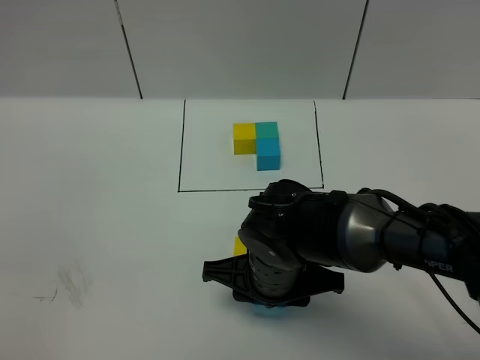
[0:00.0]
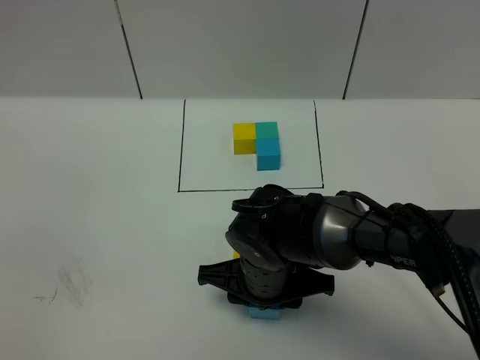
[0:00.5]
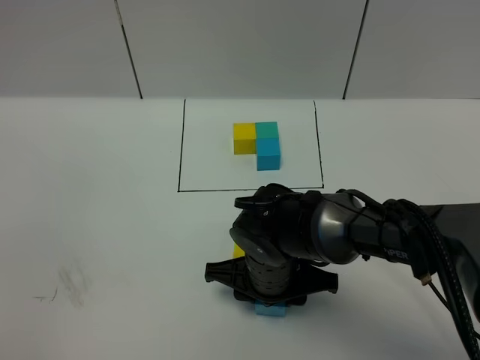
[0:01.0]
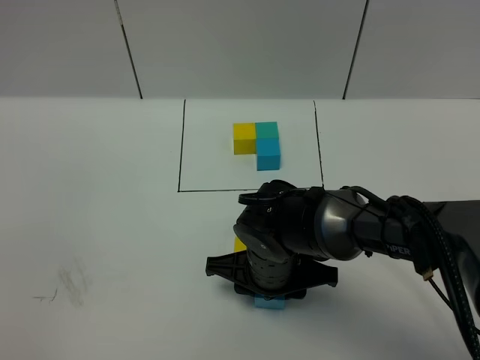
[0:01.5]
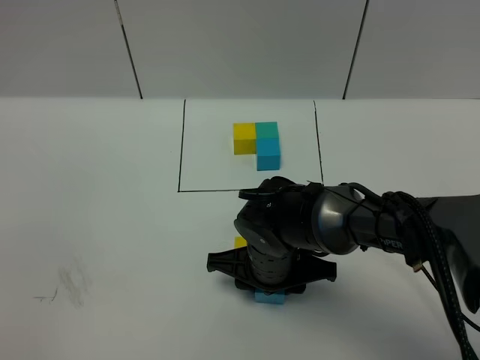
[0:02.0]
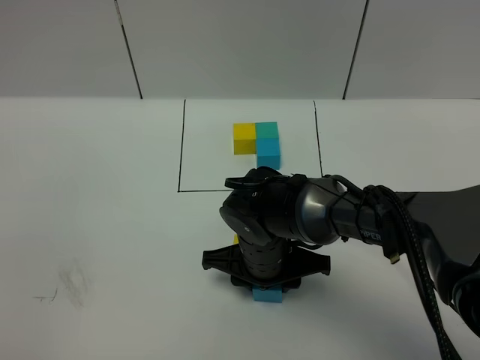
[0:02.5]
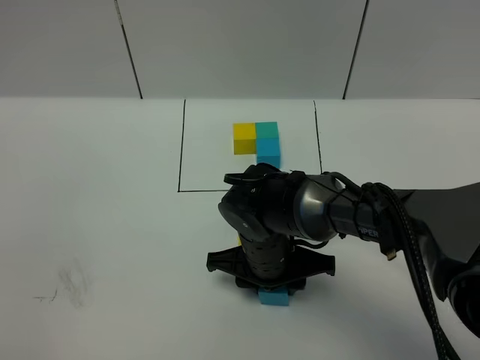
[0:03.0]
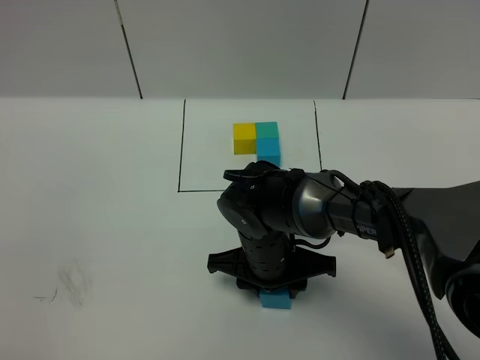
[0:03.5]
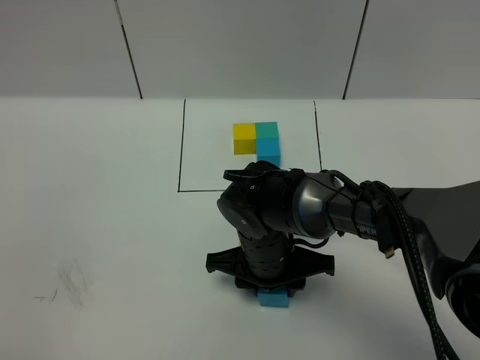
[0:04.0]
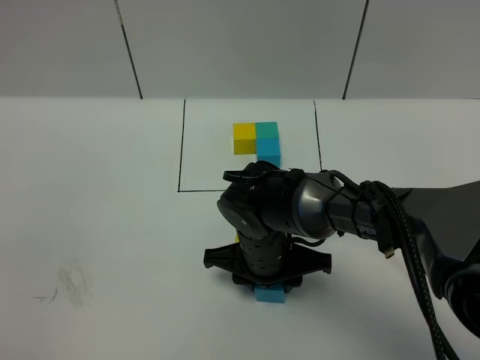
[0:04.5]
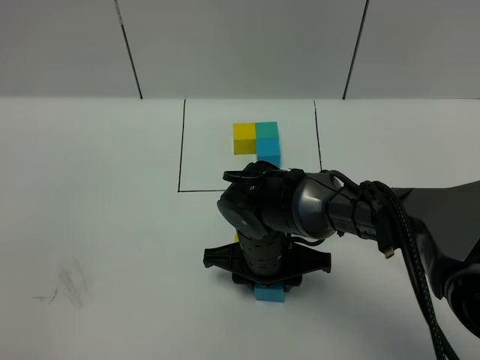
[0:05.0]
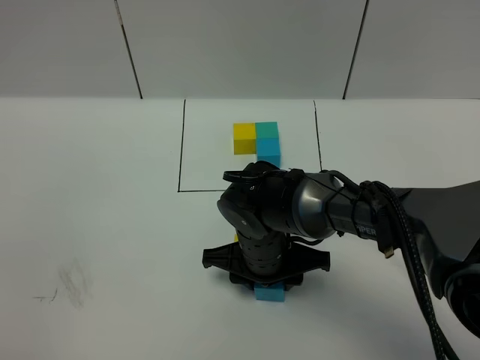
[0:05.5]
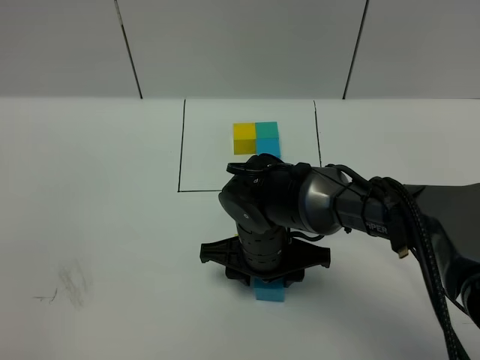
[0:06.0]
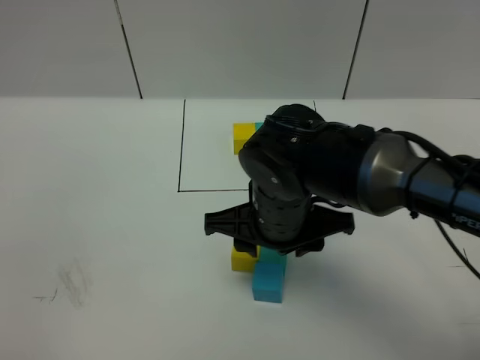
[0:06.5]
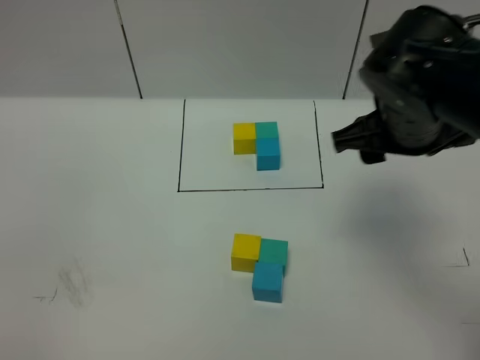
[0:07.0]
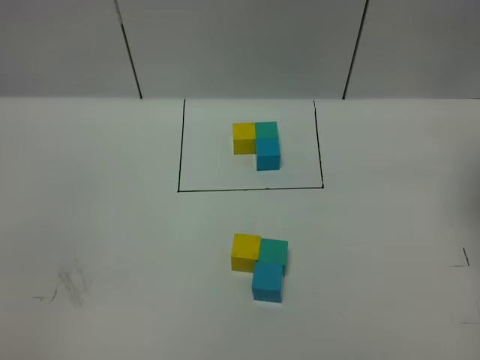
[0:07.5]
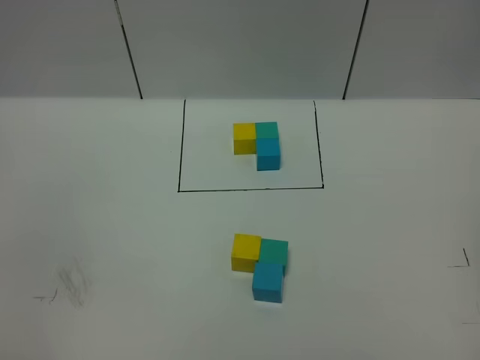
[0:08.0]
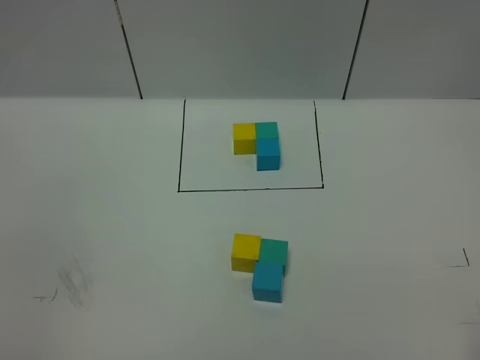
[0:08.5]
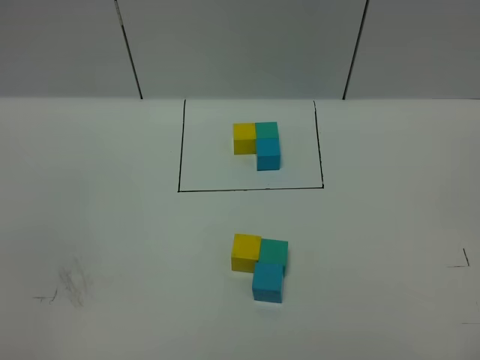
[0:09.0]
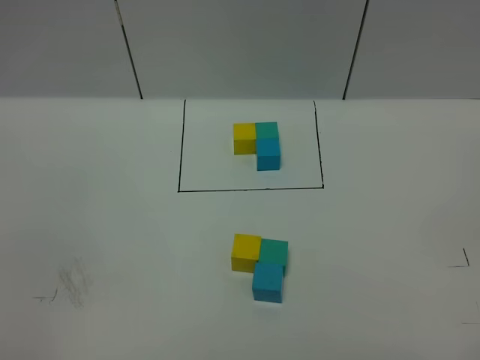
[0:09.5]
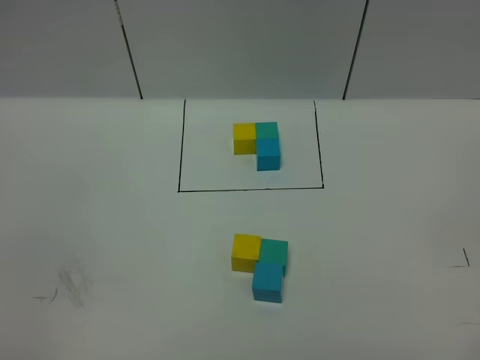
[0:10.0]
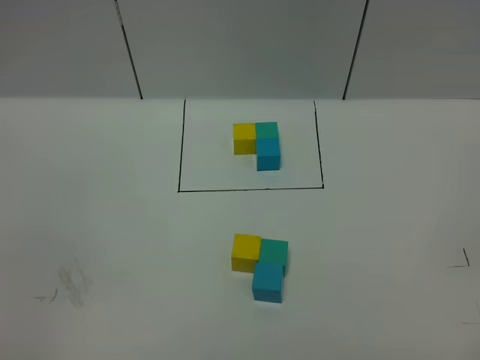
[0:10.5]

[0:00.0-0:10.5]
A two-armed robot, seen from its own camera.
Task of the whole recording: According to the building block template in front, assemble the scattered blocks together.
Step, 0:00.0 to 0:06.5: Put the blue cube in the front of the green cube.
0:00.0 to 0:04.0: The grippers stay close to where they were, moving slightly.
0:04.0 to 0:06.5: The right gripper is displaced upward by roughly 10 cm.
0:06.5 to 0:08.5: The right gripper travels to the right, backward and upward by approximately 40 cm, and opens.
